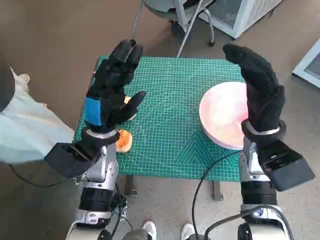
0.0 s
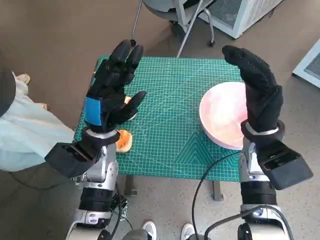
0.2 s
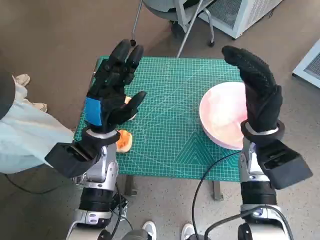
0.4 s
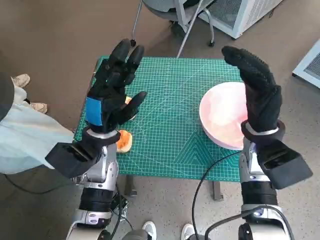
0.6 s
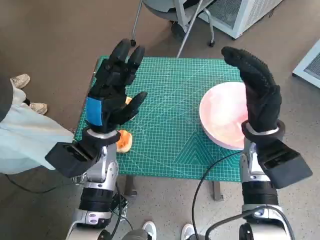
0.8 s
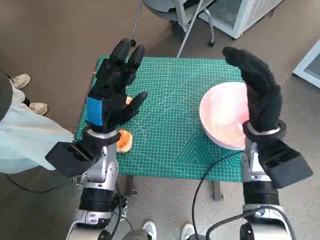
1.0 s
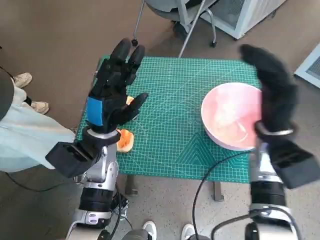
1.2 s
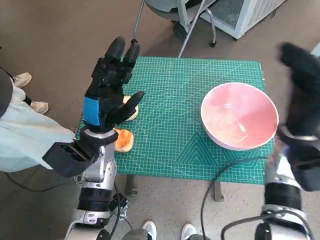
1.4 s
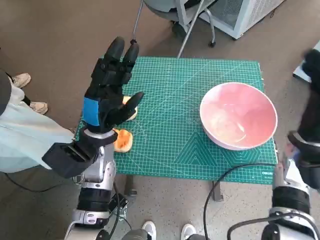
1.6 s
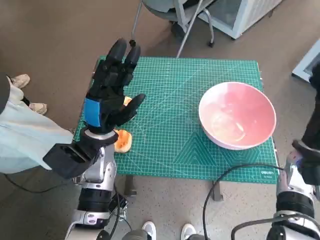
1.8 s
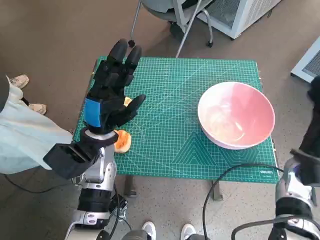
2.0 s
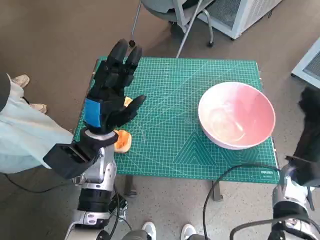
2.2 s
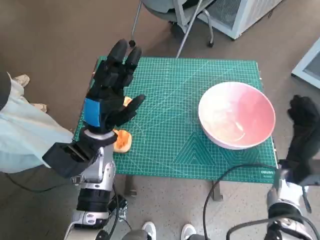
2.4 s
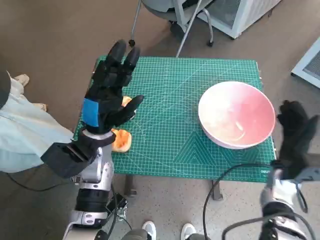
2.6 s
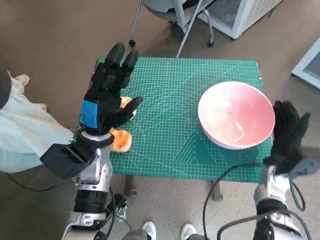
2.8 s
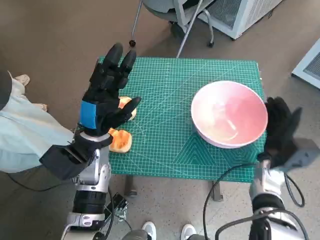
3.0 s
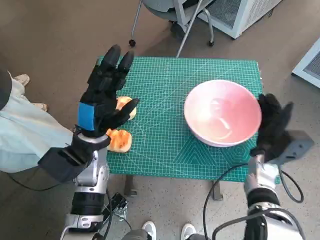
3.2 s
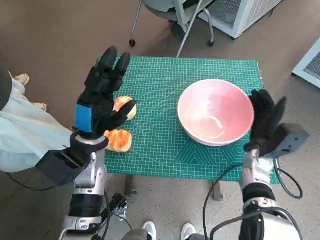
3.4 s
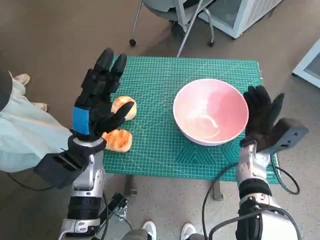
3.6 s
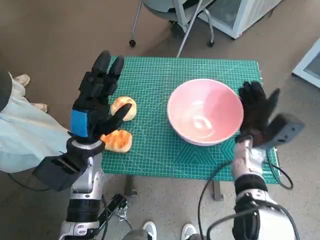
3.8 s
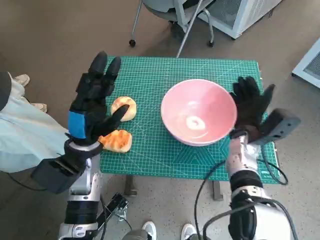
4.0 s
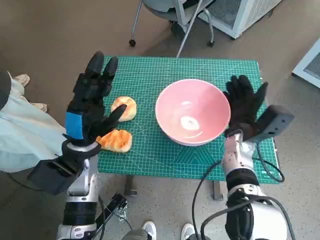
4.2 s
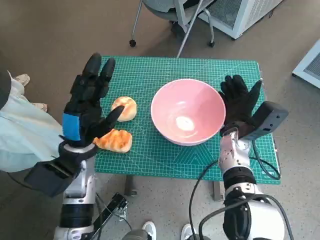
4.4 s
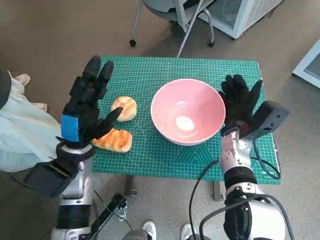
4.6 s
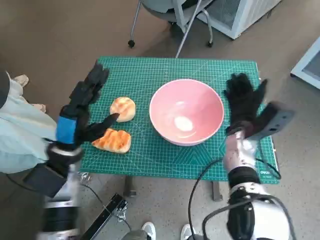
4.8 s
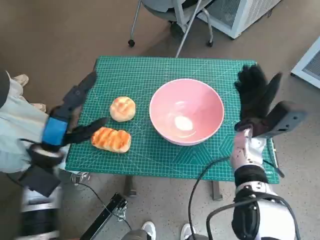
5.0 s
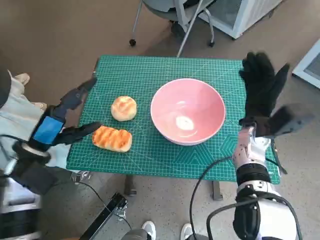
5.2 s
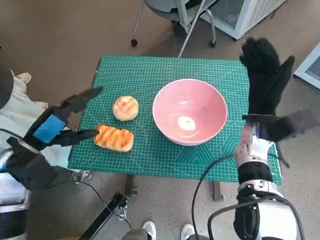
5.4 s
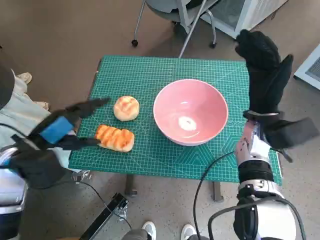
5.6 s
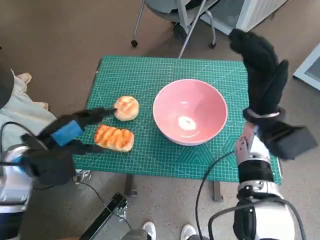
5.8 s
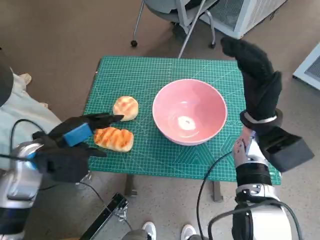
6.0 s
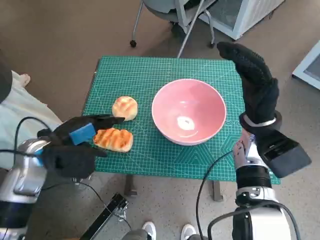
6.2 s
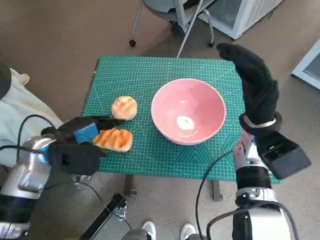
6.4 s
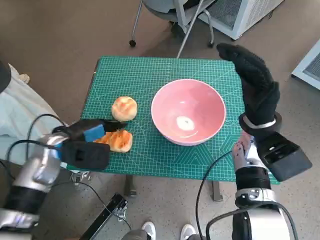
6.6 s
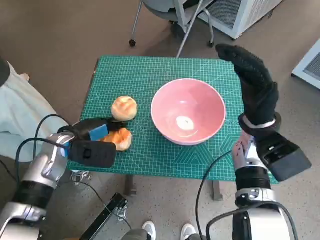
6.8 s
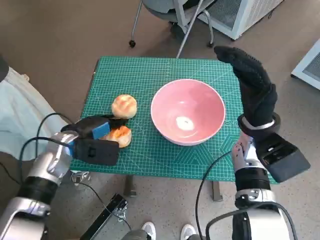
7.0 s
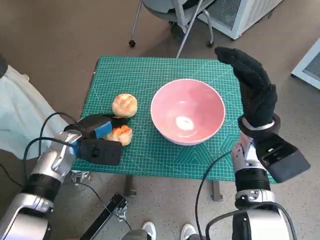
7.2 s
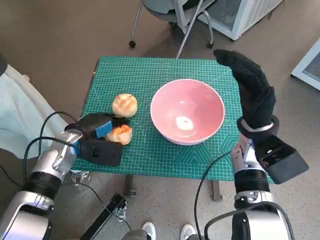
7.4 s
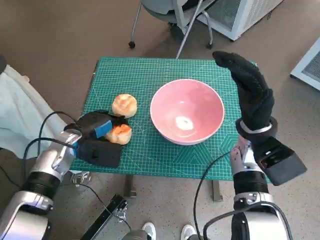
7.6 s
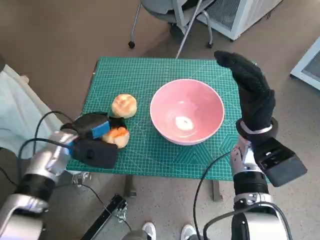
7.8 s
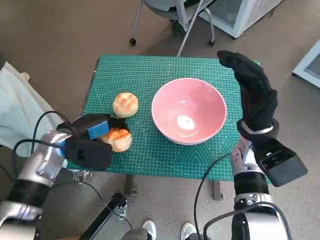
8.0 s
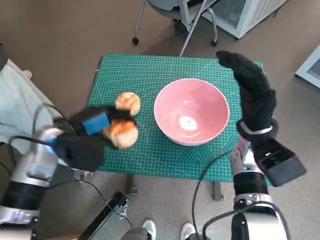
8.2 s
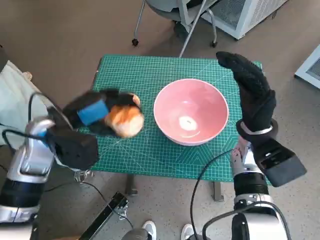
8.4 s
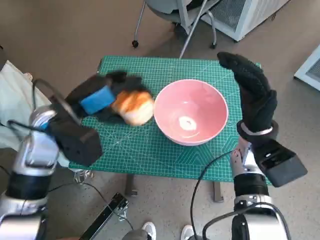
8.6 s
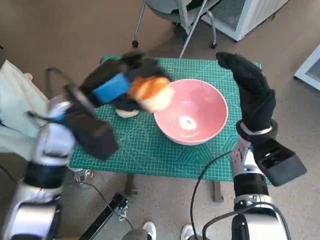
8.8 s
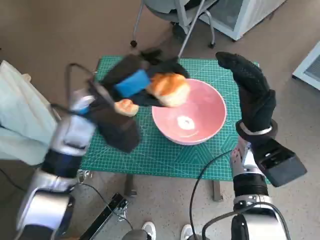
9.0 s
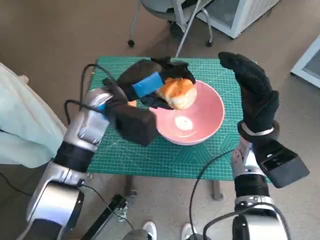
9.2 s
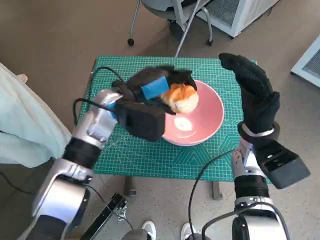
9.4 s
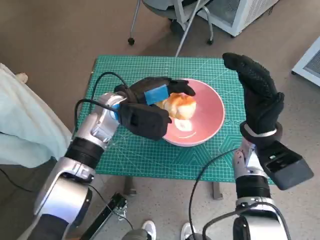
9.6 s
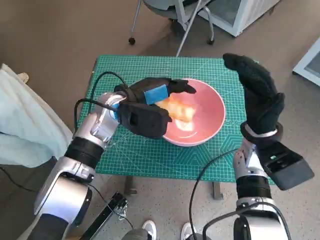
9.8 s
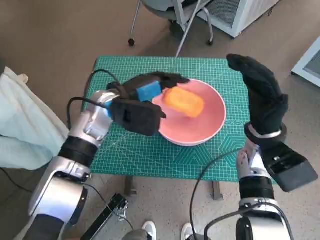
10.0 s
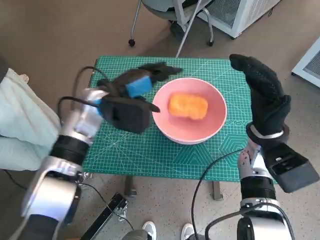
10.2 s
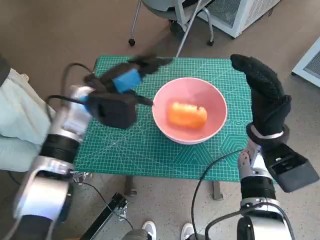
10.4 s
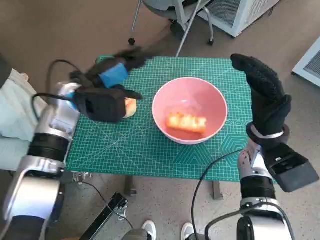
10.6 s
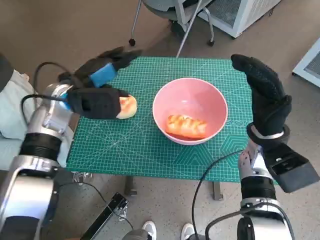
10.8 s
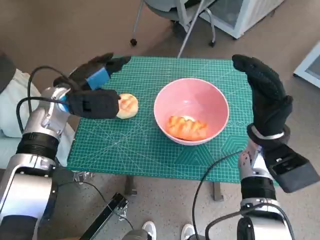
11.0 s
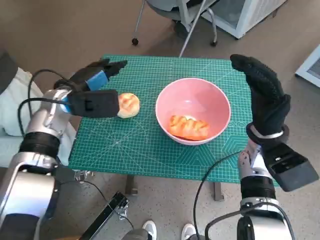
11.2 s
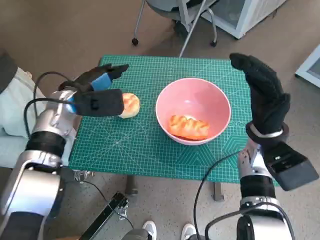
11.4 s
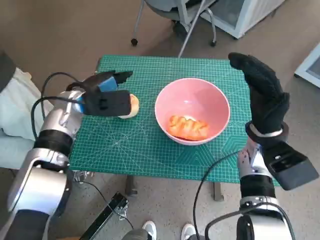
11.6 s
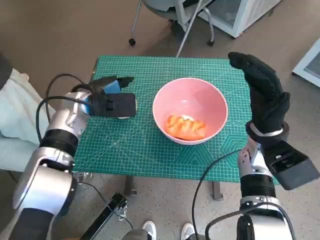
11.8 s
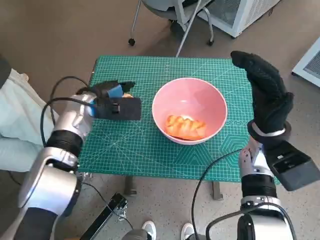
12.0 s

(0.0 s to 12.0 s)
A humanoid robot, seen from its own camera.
Task of the whole recording: Push the bowl to the center of the table and put the bread into the bowl.
Step, 0.0 s - 4.6 s: Move the pink bowl to the center of table with right hand.
Step, 5.0 s - 7.0 s: Grasp the long bread with left hand.
Step, 7.2 s - 9.8 s: Place the long bread in pink bowl with left hand.
1.6 s - 3.0 s: The right hand heads downward, covering some 10 cm.
3.0 s - 4.4 s: The right hand shifts roughly 10 cm to the left.
4.4 s - 6.0 s: The left hand goes some 5 cm to the left; the right hand travels upward by roughly 10 cm.
6.0 s - 7.6 s: The left hand travels downward and forward by roughly 10 cm.
7.6 s - 9.0 s: The left hand goes roughly 15 cm upward and to the right.
10.4 s - 12.0 s: The left hand changes place by about 5 cm.

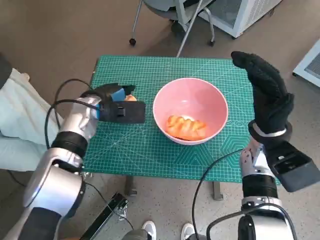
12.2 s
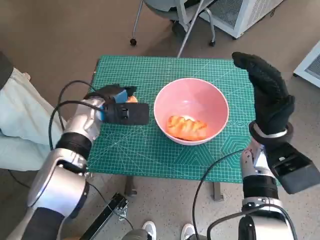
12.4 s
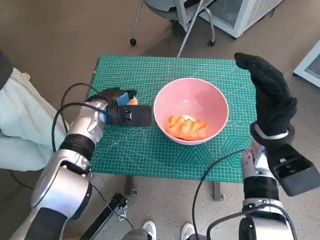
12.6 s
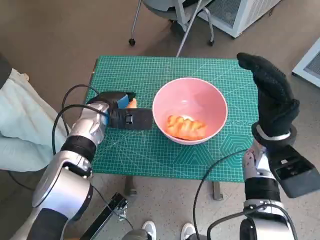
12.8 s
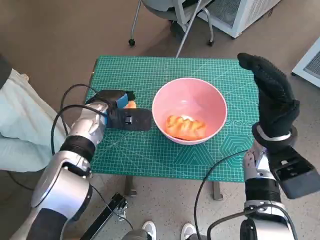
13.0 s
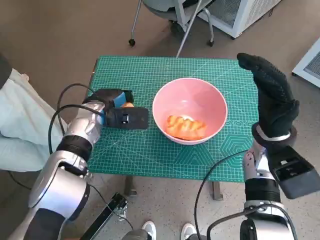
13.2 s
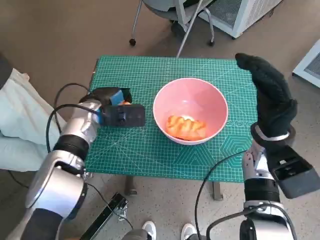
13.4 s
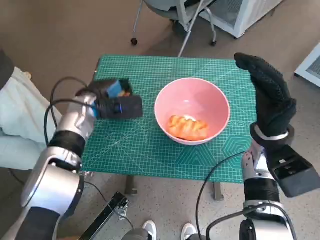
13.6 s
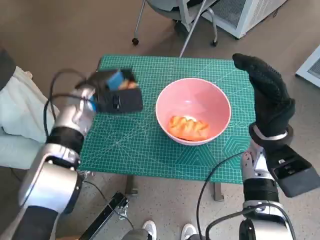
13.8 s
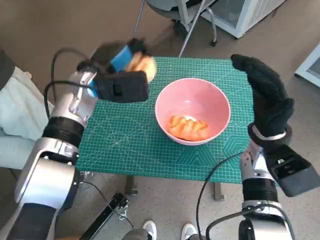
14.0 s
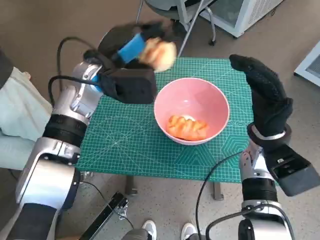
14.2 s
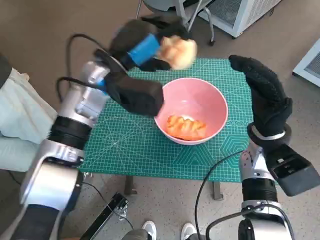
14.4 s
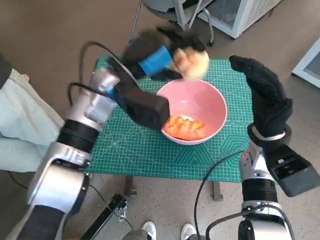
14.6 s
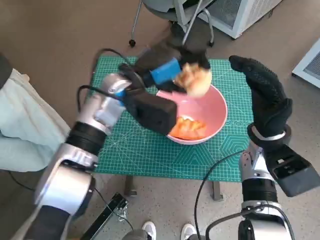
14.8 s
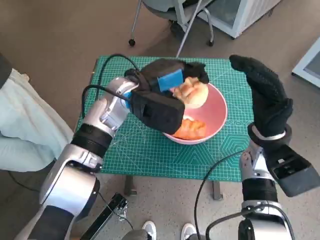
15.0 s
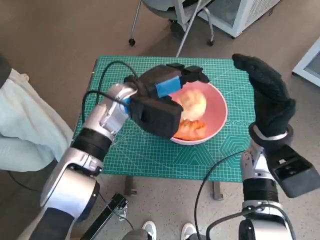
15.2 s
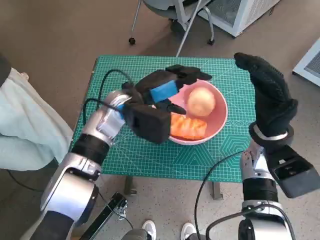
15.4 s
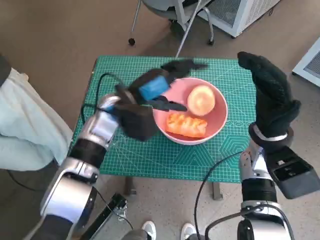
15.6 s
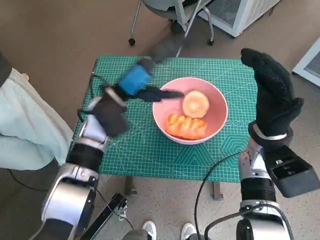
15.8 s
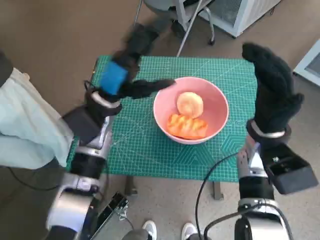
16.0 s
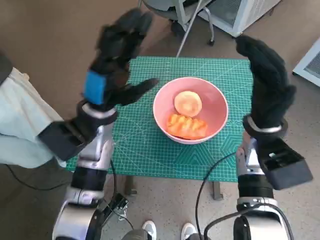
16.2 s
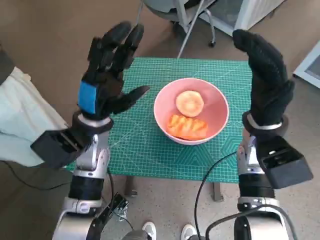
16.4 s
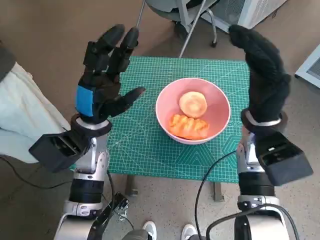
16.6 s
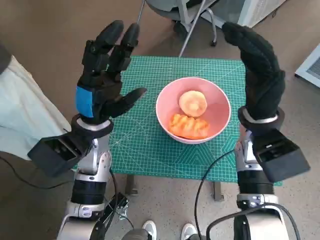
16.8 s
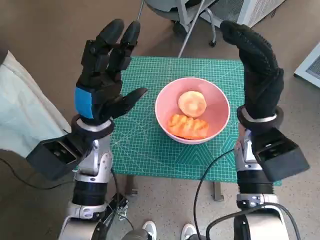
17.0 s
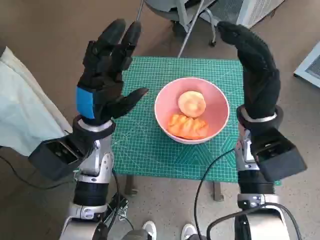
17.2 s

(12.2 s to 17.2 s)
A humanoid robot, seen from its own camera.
Task of the whole recording: Push the bowl to the center of the table and put the bread into the bowl.
Step, 13.2 s - 15.2 s: Place the round bread in pink bowl with left hand.
13.8 s - 15.6 s: The left hand shifts about 5 cm to the right.
15.6 s - 17.2 s: The right hand changes place by approximately 5 cm. Meanwhile the left hand travels backward by some 5 cm.

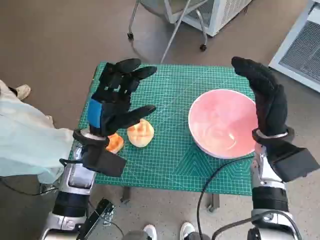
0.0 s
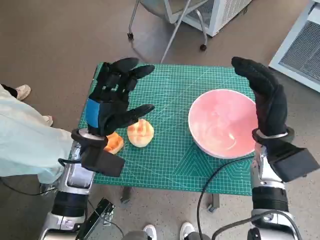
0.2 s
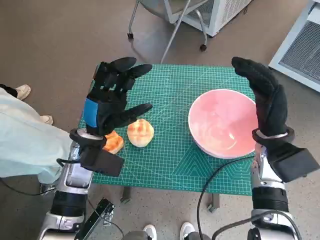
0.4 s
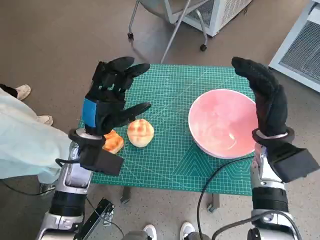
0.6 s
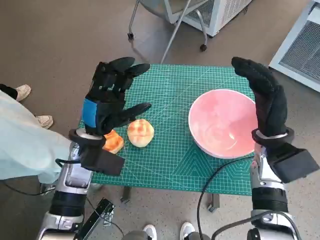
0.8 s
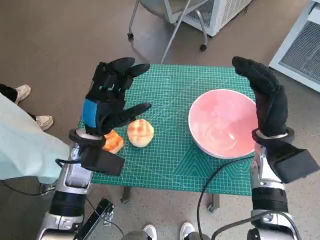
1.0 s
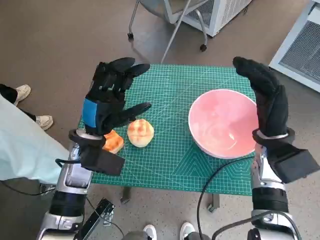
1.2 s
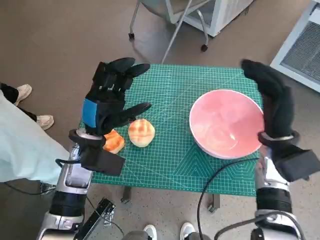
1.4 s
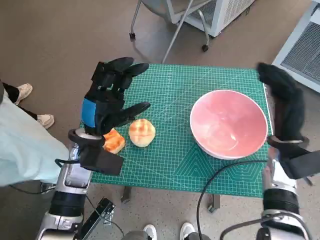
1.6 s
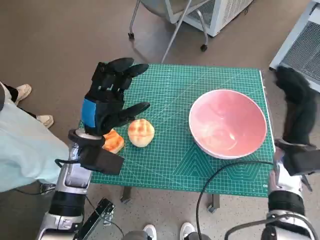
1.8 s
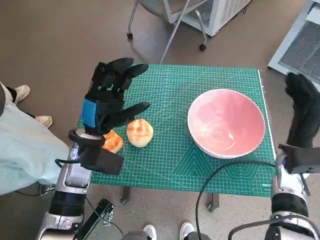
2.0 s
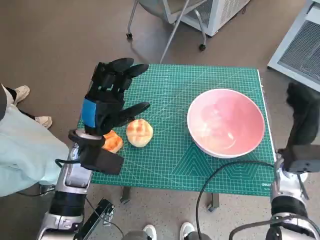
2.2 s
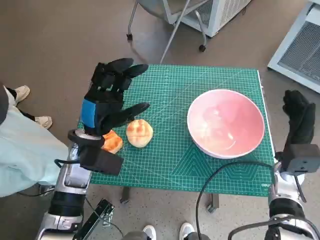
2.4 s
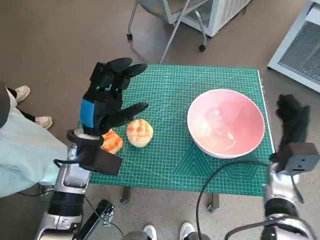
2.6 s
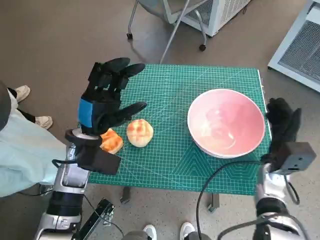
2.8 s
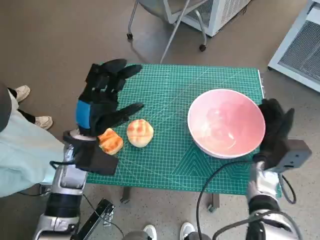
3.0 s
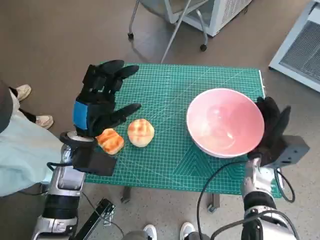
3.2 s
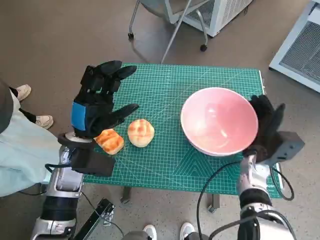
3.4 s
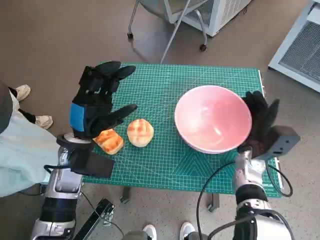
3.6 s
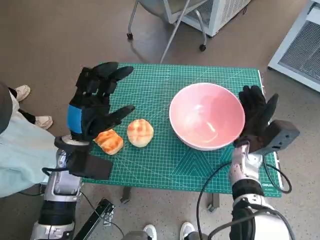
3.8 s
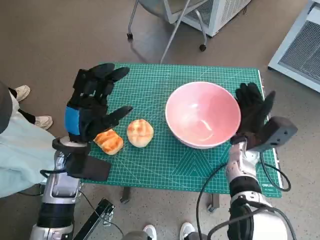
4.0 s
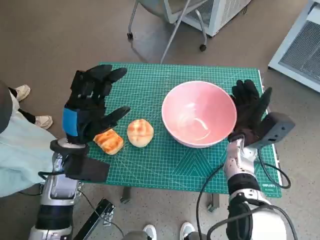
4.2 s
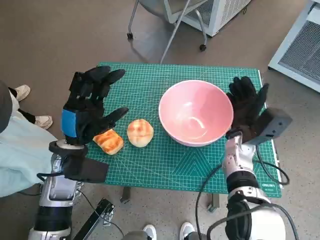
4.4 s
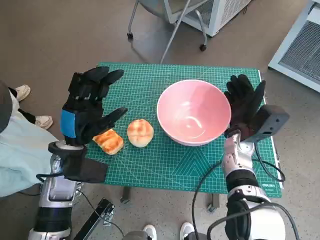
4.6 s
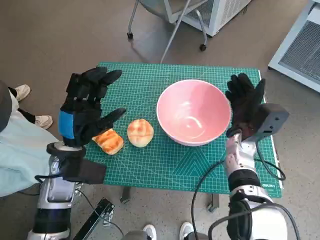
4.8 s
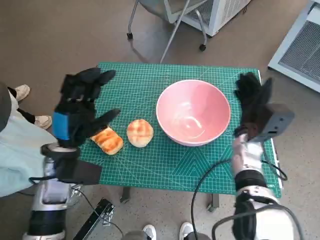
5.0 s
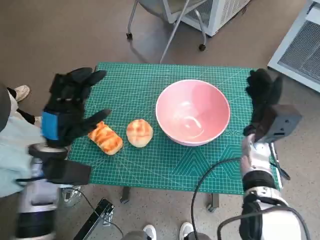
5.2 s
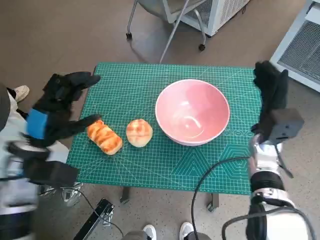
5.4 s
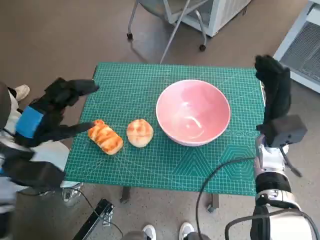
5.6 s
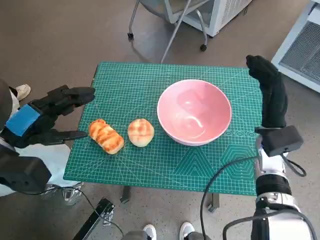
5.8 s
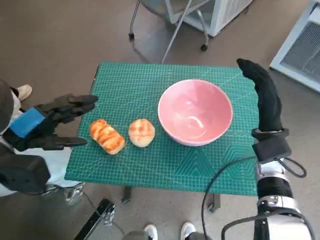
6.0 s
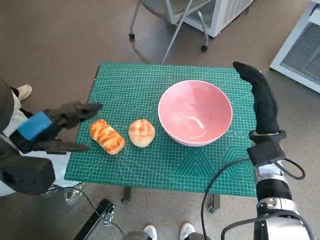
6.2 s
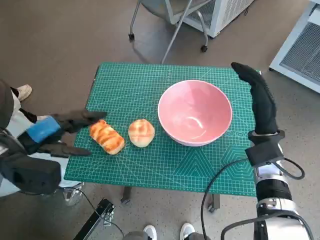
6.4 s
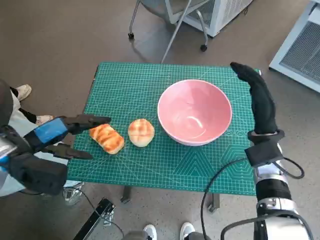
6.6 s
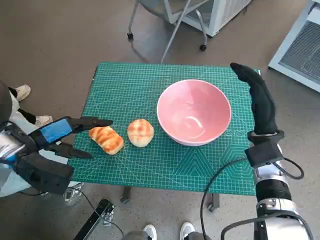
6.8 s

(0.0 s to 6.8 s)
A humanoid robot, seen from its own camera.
Task of the whole recording: Push the bowl to the center of the table and put the bread into the bowl.
Step, 0.0 s - 4.8 s: Move the pink bowl to the center of table with right hand.
1.4 s - 2.8 s: The right hand moves downward, approximately 10 cm.
2.8 s - 4.0 s: The right hand moves to the left, about 5 cm.
4.0 s - 5.4 s: The left hand travels to the left by roughly 5 cm.
